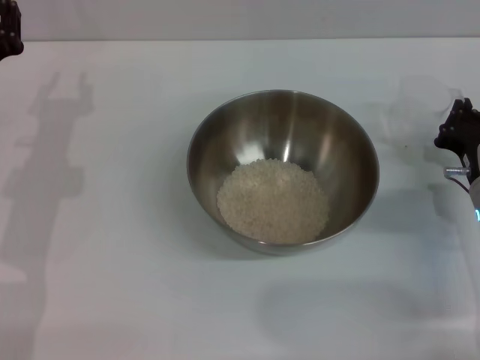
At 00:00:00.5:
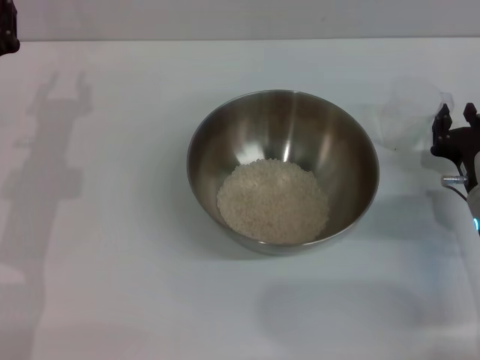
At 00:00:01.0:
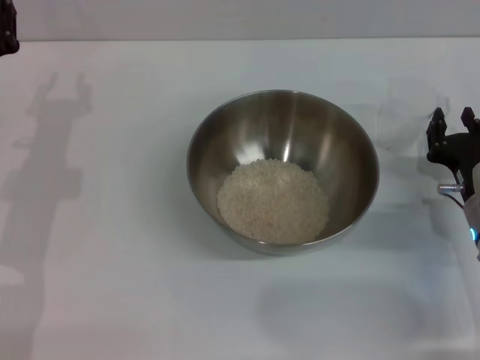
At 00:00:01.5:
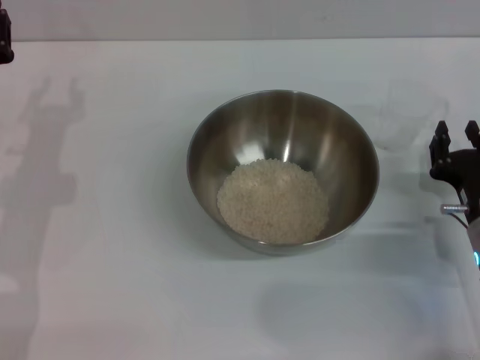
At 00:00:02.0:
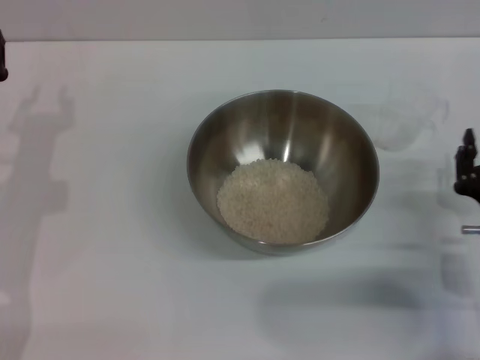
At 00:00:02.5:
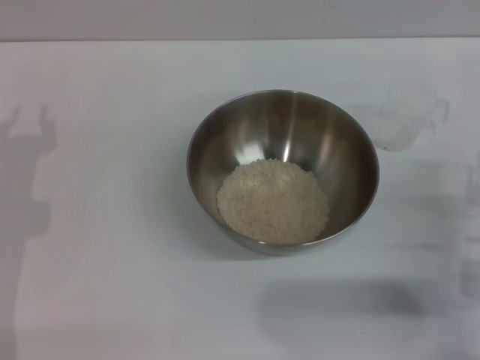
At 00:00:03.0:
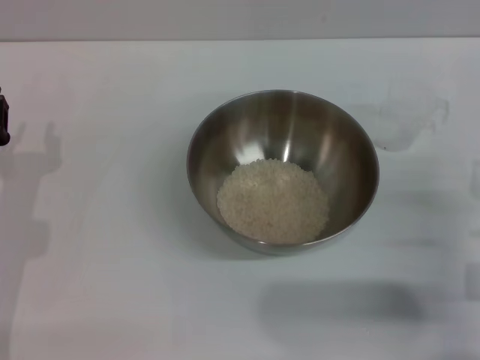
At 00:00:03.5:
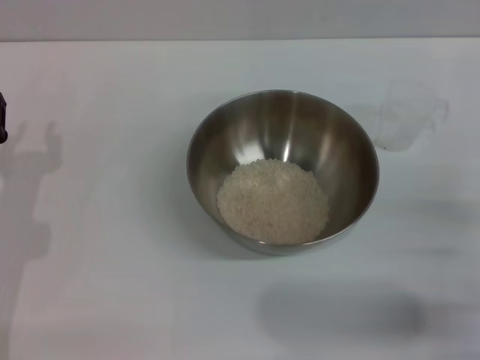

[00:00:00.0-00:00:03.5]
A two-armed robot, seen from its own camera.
Task of the whole recording: Place the bowl in the middle of the table with one hand and pour the rice from the grain cup into it with the other hand.
00:00:00.0 to 00:00:02.0: The right gripper moves backward, some 10 cm, and opens.
00:00:02.0 to 00:00:03.5: The right gripper moves approximately 5 cm.
